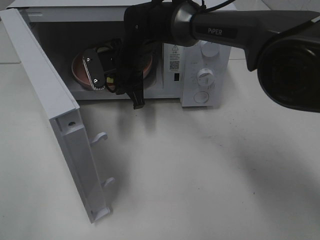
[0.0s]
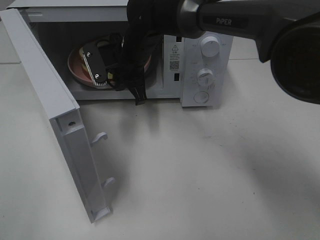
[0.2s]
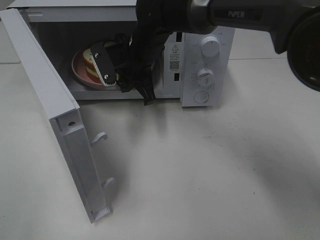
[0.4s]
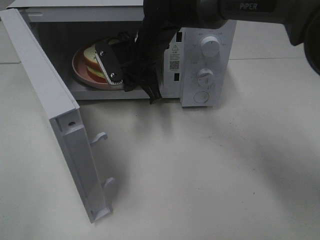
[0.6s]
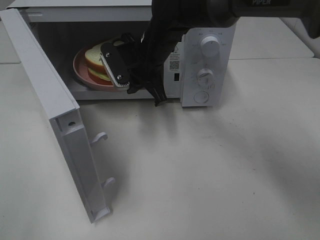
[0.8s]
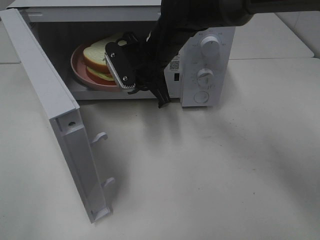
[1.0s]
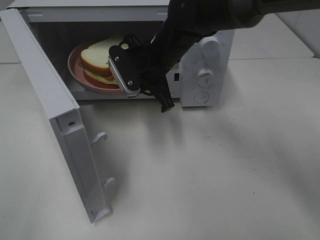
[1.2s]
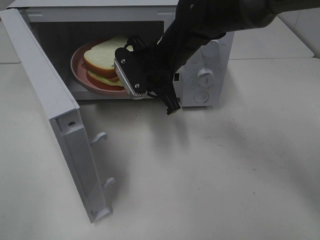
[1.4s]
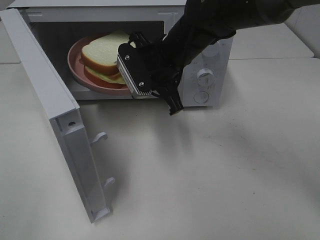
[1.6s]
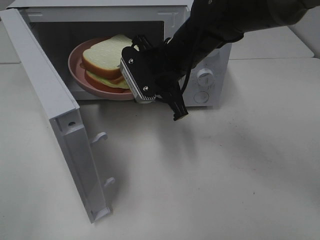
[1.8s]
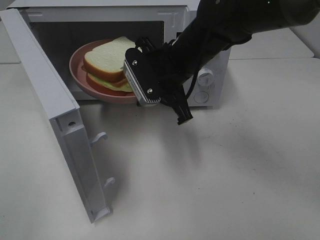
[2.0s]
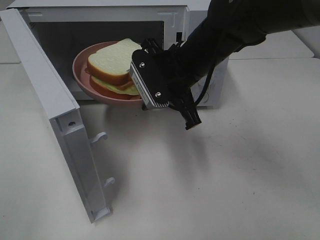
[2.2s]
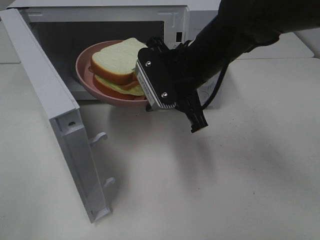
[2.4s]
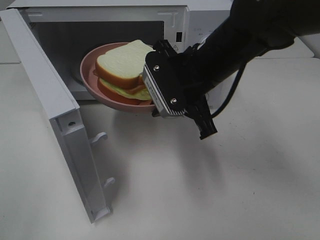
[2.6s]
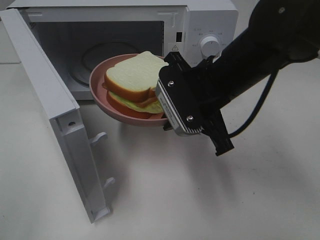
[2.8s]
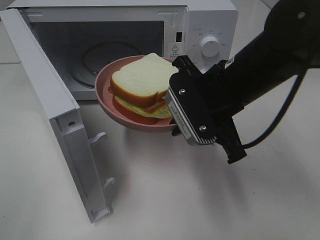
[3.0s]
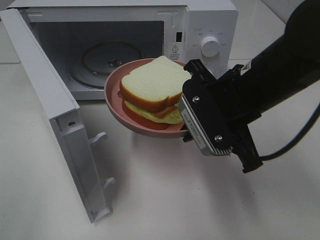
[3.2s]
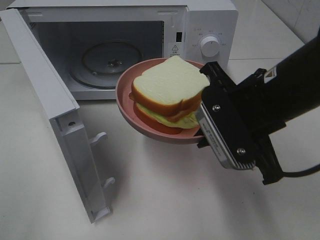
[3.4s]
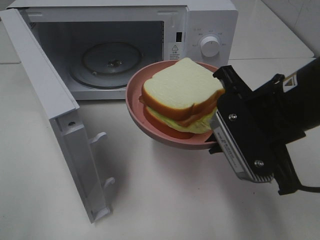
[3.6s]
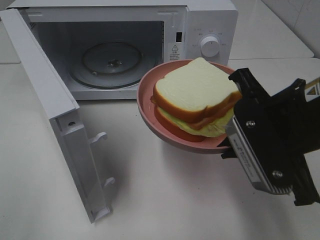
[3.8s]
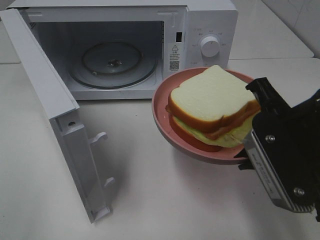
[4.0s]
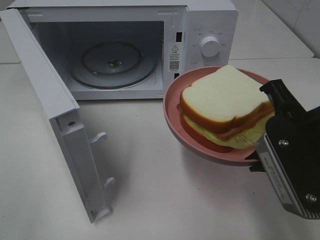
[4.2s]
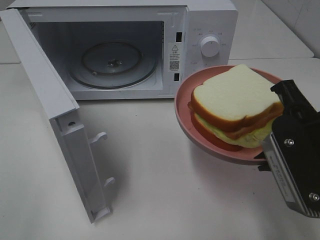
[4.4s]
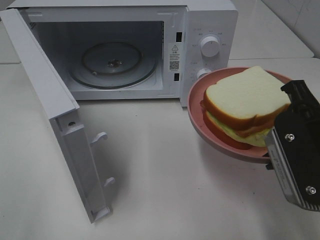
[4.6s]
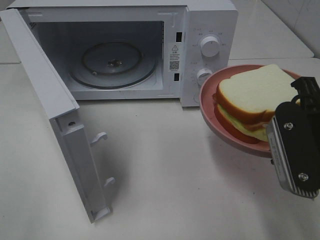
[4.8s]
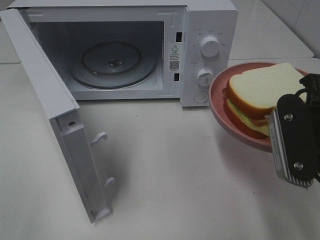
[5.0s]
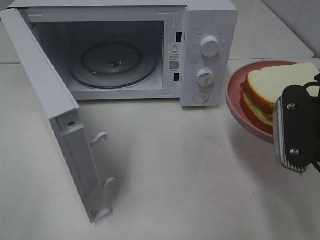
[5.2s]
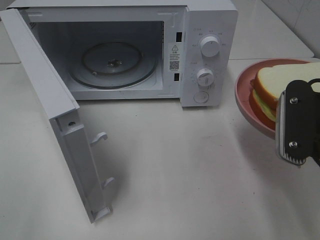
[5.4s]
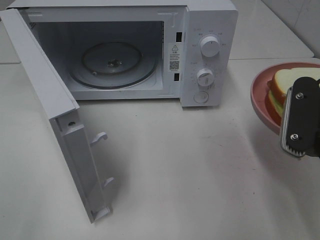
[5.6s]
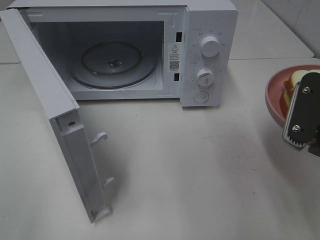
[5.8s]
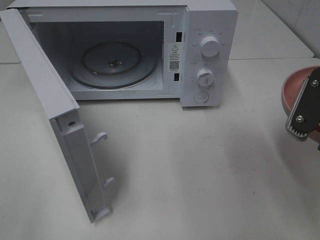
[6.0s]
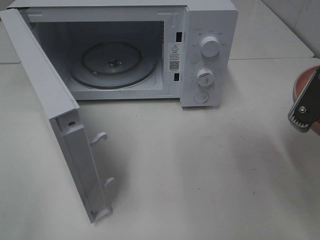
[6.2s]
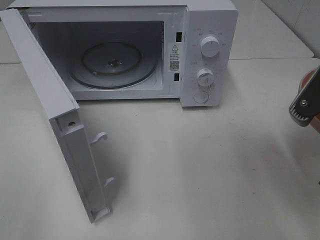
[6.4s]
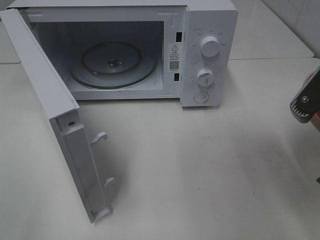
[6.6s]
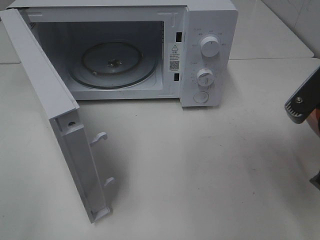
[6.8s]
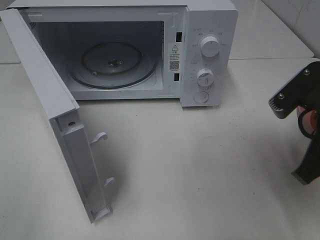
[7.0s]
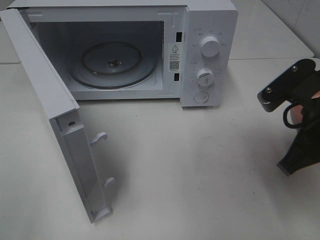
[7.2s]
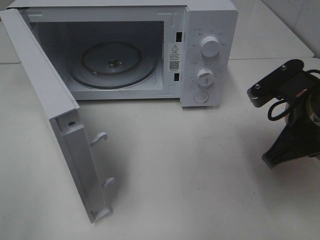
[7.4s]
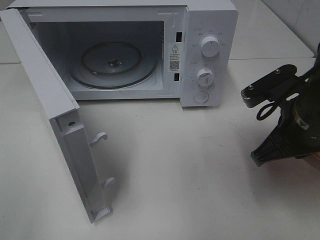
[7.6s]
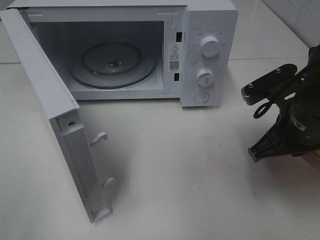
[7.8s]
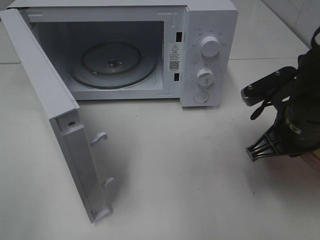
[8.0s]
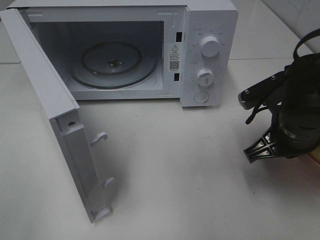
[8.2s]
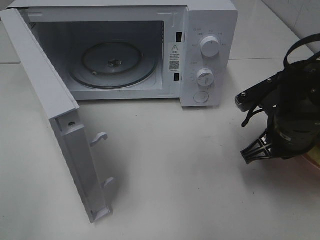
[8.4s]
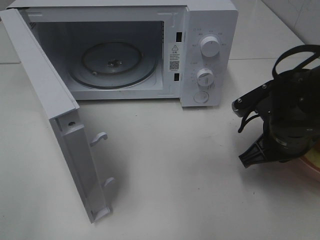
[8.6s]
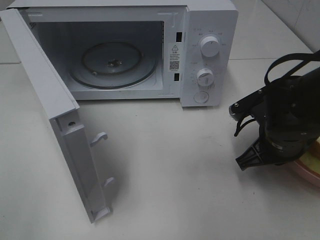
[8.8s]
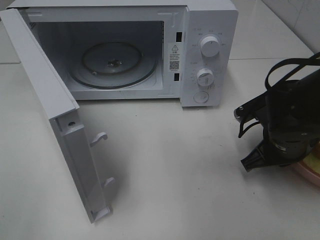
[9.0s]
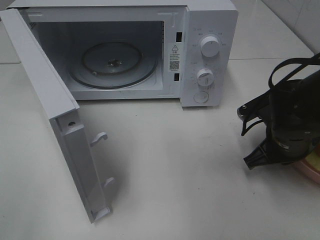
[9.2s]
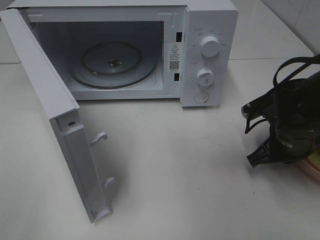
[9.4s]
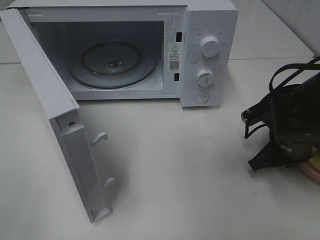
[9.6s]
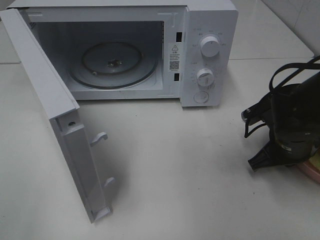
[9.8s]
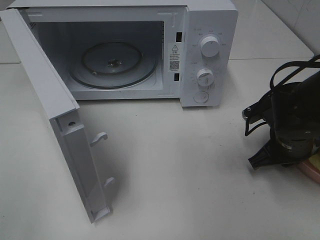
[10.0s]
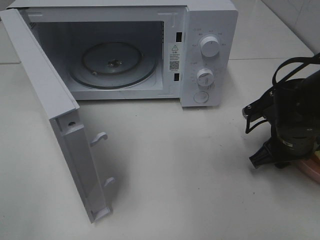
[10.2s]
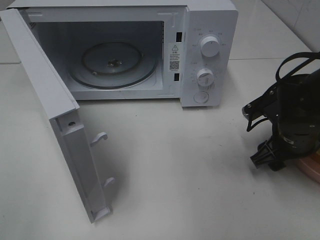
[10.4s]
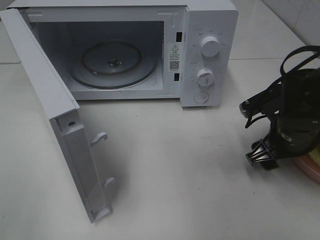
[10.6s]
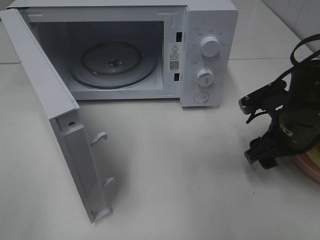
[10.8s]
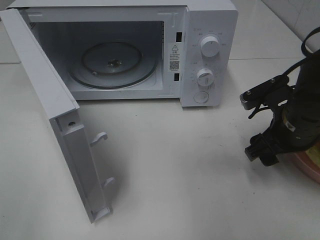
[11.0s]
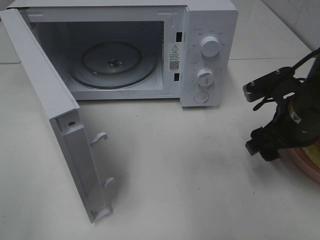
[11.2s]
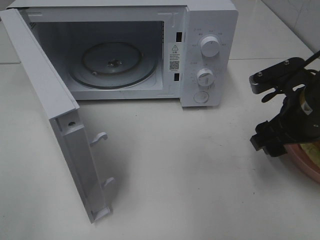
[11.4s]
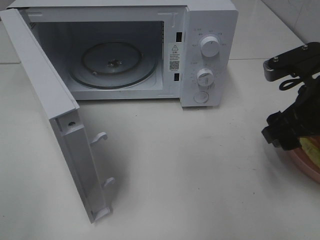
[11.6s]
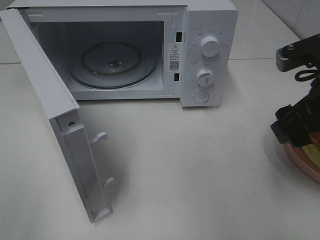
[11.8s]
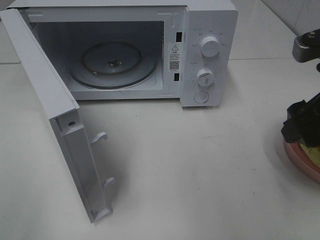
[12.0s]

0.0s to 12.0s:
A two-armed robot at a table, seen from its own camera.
Task of the whole recording: Heat Sandwich.
Step, 0.0s to 10.8s: Right hand: place the plate on the table.
0.0s to 1.6s: The right gripper is displaced to the right and backward by some 10 cm.
1.6s to 3.0s: The right gripper is displaced backward and to the right by some 15 cm.
3.0s to 4.4s: The right gripper heads backward and to the right, covering approximately 15 cm.
6.0s to 7.6s: The right gripper is displaced forward by approximately 5 cm.
7.6s to 9.0s: The right gripper heads downward, covering approximately 10 cm.
9.0s to 10.4s: The right gripper opens its fingers.
10.4s to 12.0s: The right gripper shifts about 20 cm upward and backward.

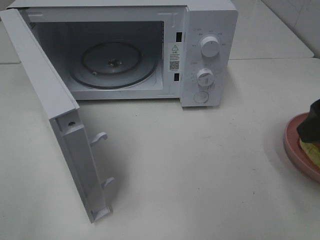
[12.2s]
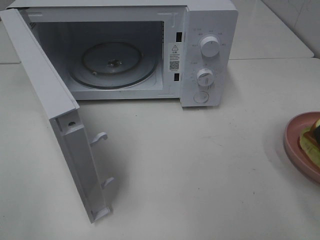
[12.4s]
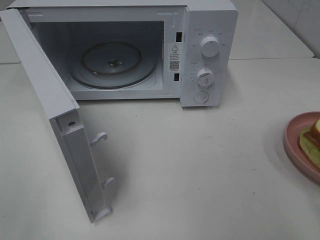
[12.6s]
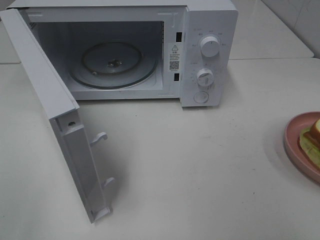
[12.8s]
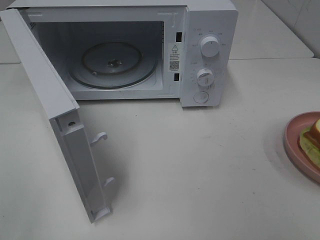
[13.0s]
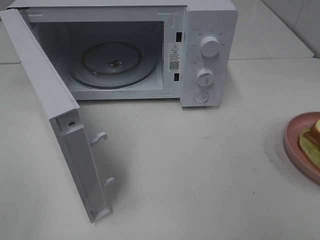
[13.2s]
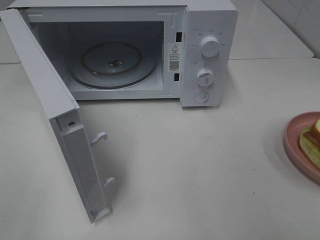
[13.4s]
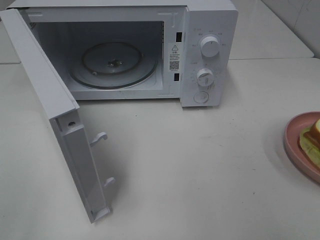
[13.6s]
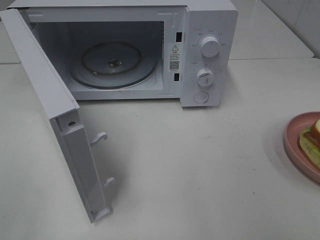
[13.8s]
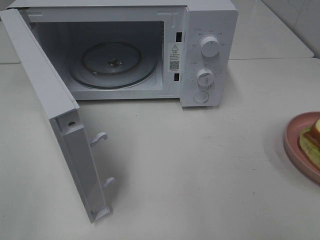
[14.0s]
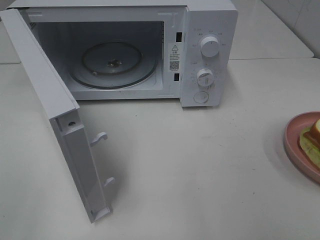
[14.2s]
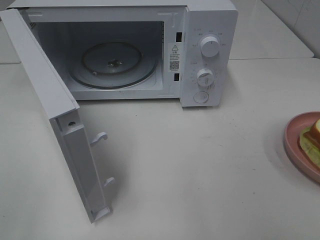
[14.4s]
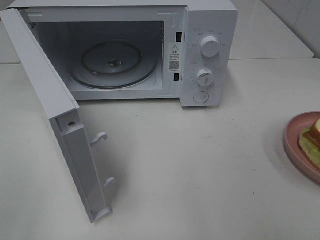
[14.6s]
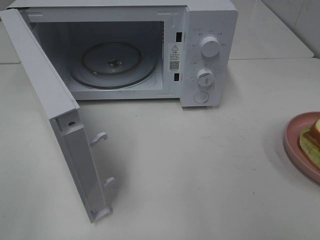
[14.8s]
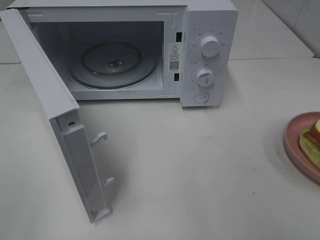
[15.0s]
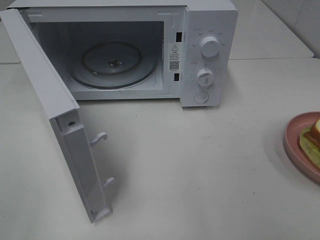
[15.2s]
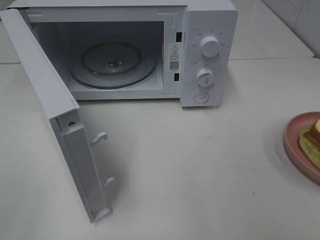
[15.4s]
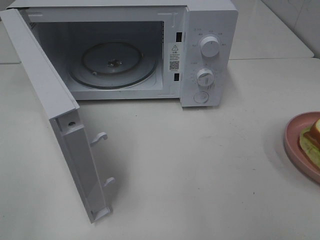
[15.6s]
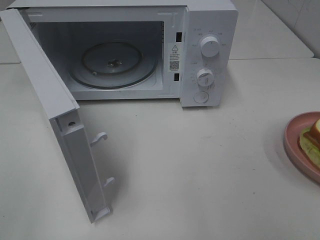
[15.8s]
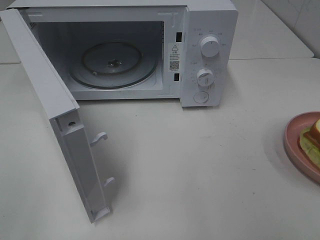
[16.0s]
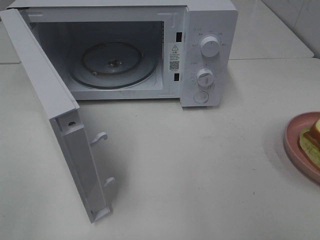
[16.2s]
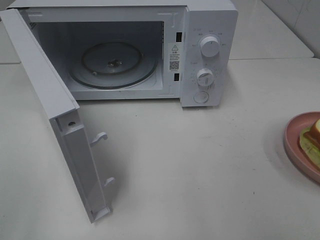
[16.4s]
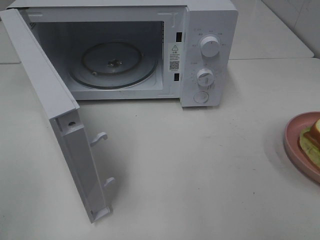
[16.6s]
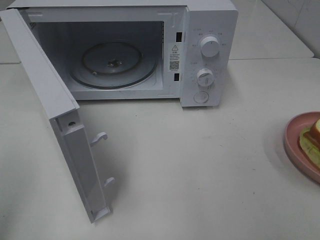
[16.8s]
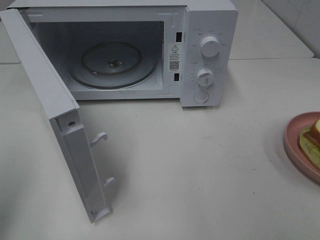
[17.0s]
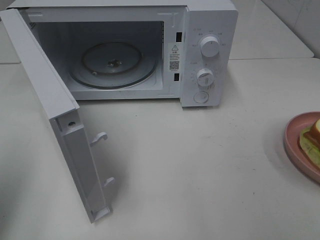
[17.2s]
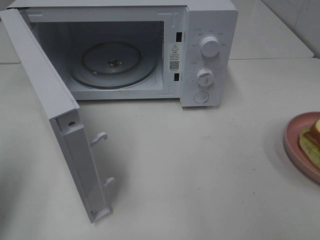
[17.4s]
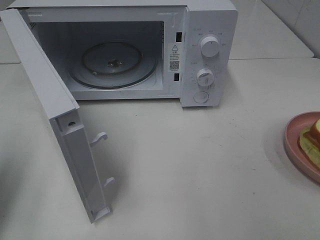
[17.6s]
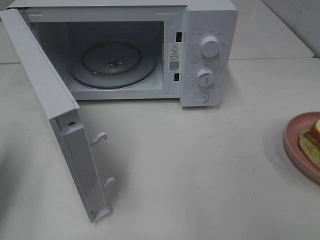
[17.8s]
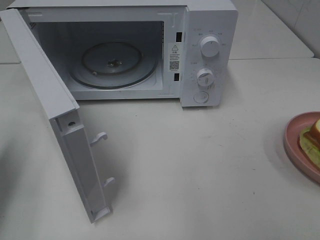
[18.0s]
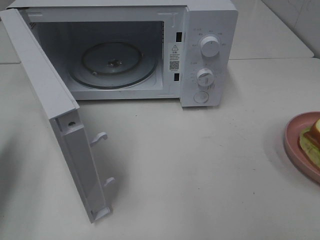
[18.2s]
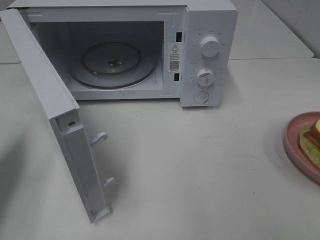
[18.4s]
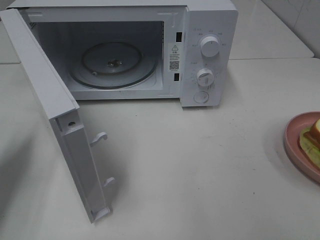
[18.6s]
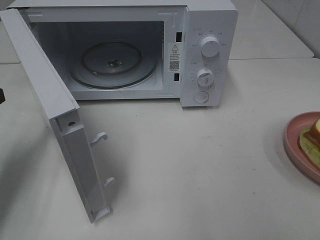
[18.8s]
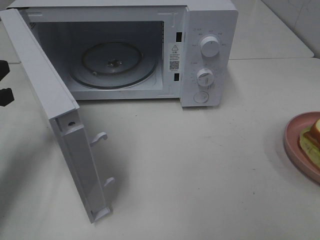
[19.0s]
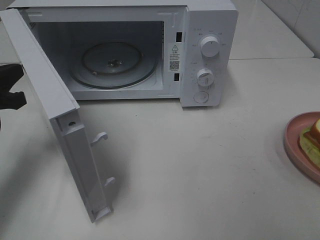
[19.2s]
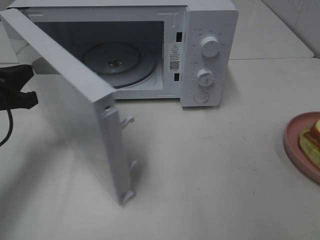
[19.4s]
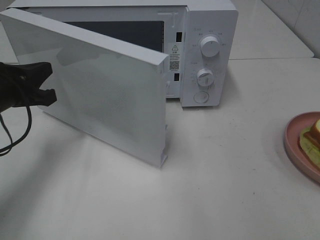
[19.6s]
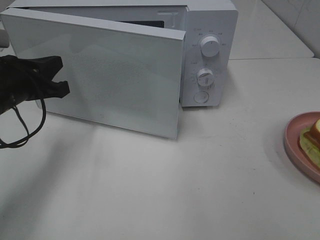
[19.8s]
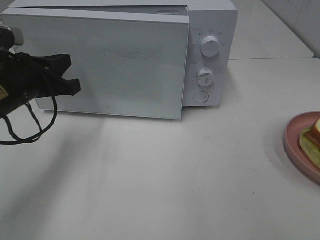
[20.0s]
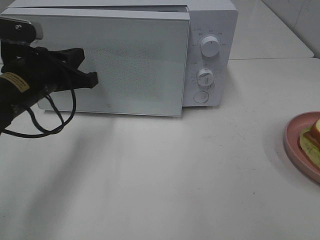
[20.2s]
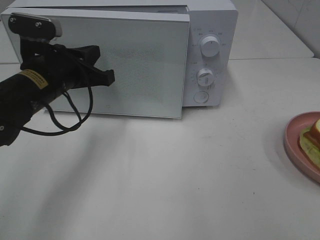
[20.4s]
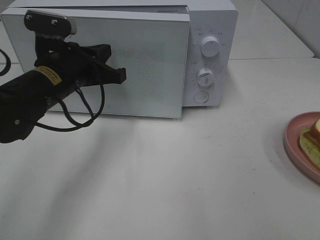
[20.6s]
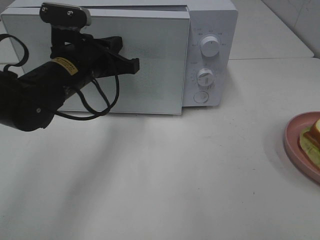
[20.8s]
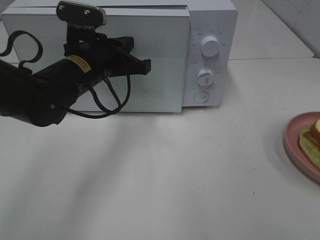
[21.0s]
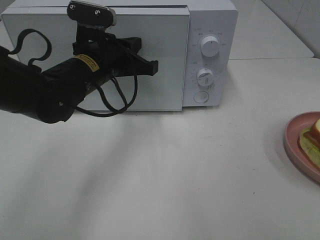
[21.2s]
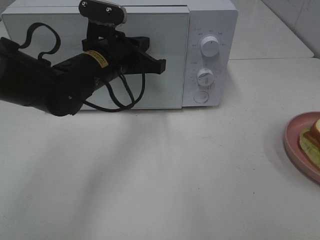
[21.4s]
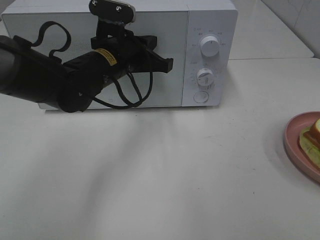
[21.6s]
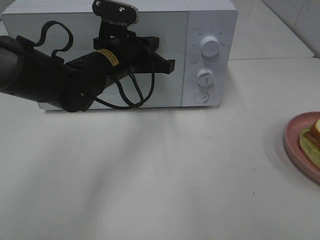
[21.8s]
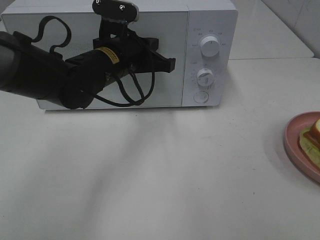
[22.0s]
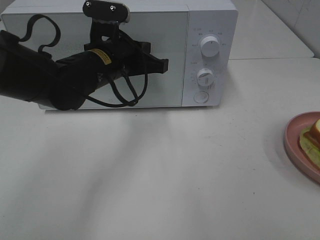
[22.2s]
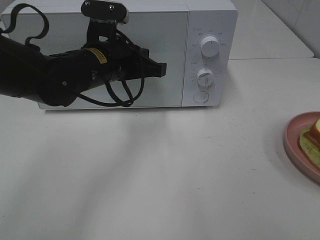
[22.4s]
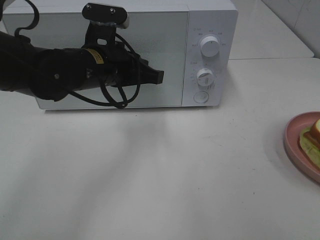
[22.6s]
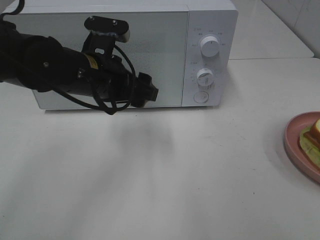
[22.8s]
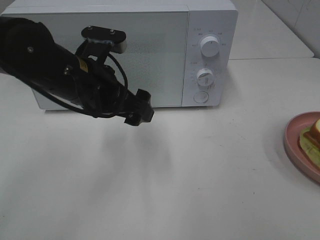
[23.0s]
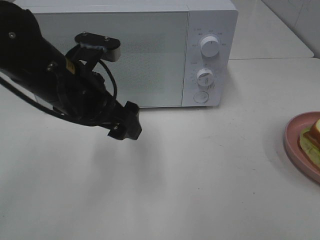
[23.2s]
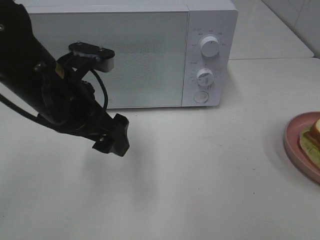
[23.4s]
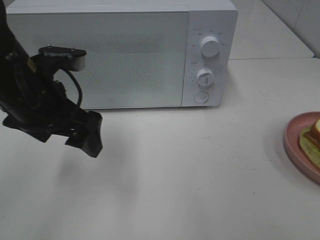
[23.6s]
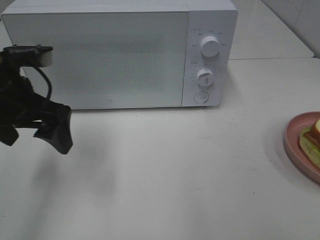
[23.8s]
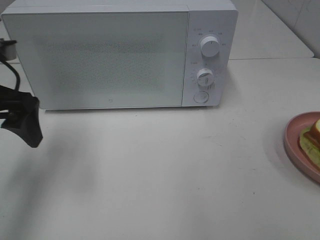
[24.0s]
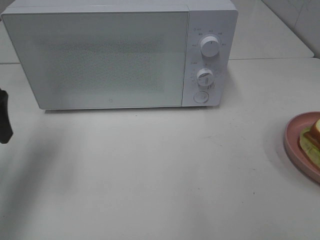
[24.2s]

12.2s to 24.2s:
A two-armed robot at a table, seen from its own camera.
Task of the whole recording: Heat Sandwich.
Step, 12.2s to 23.2s: Left hand: close the microwave door.
12.2s to 13.8s: The right gripper is displaced backward and to the right by roughly 15 cm.
16.6s to 18.2s: The left gripper is displaced forward and downward by approximately 20 cm, and closes.
18.2s to 19.8s: The left gripper travels to the right and forward by about 15 cm.
19.8s to 21.2s: The left gripper is displaced to the right by some 15 cm.
22.6s to 24.2s: The left gripper is displaced to the left by roughly 20 cm, and opens.
